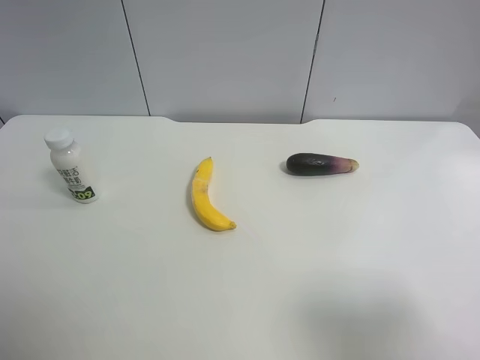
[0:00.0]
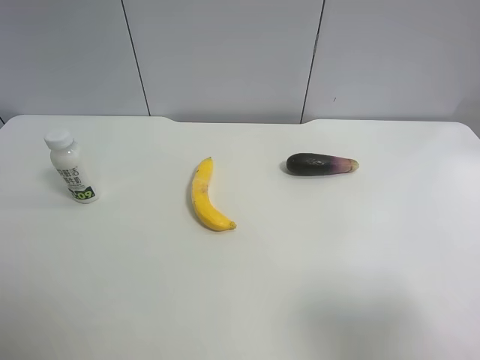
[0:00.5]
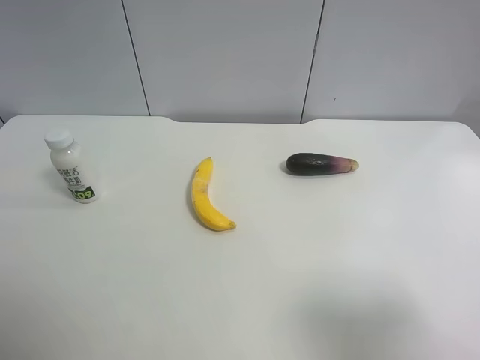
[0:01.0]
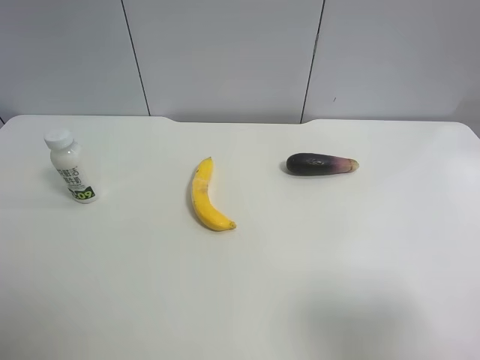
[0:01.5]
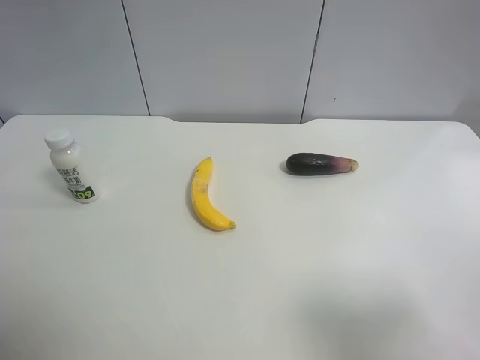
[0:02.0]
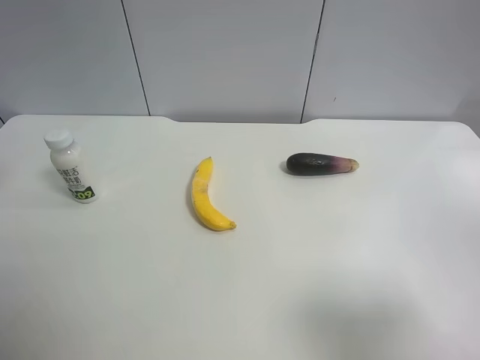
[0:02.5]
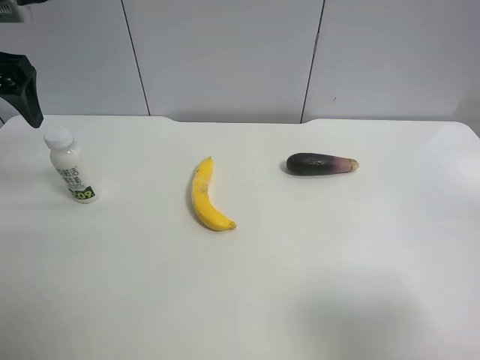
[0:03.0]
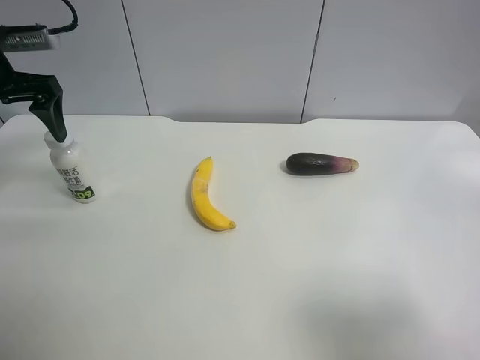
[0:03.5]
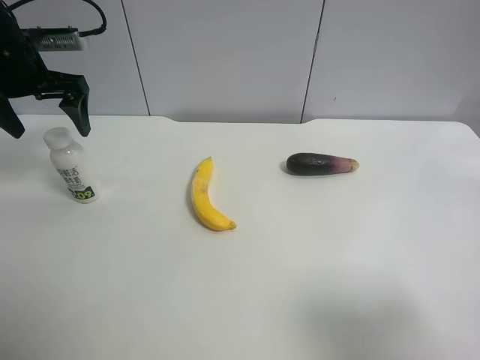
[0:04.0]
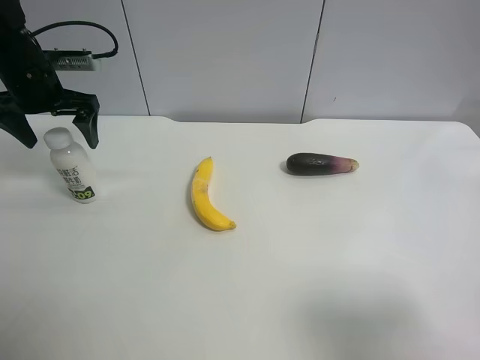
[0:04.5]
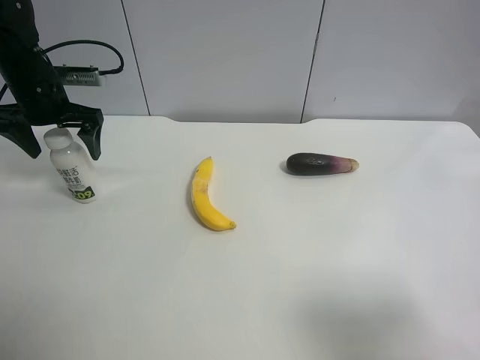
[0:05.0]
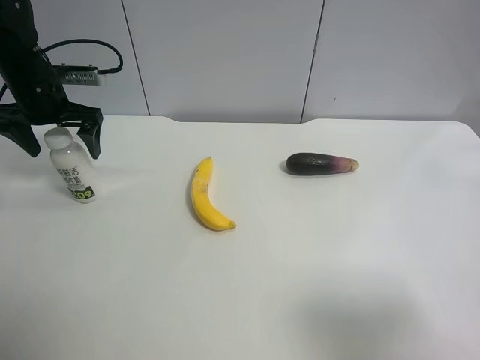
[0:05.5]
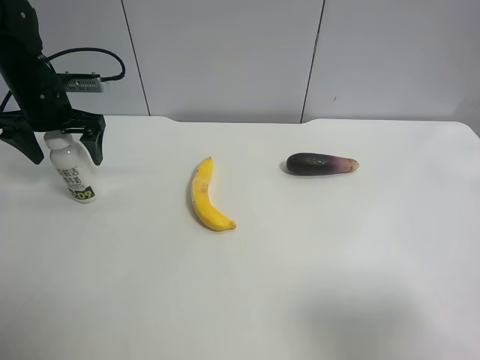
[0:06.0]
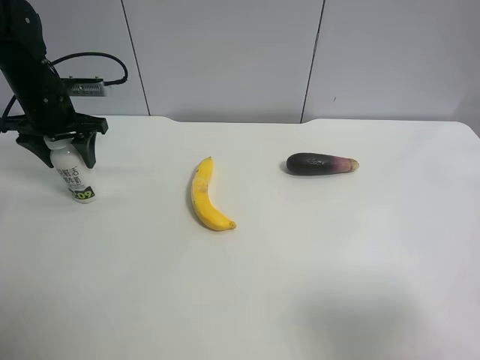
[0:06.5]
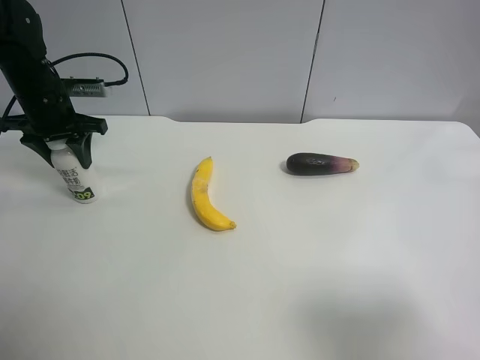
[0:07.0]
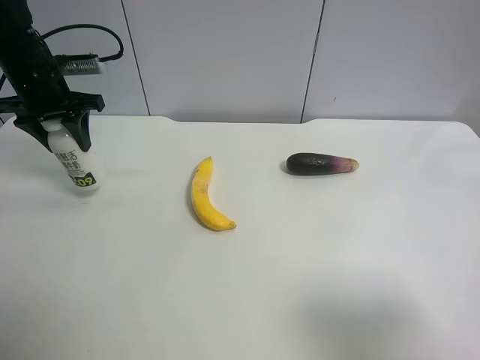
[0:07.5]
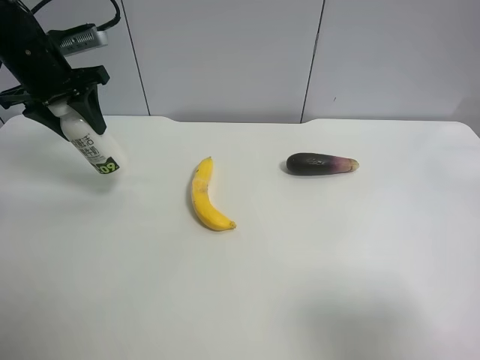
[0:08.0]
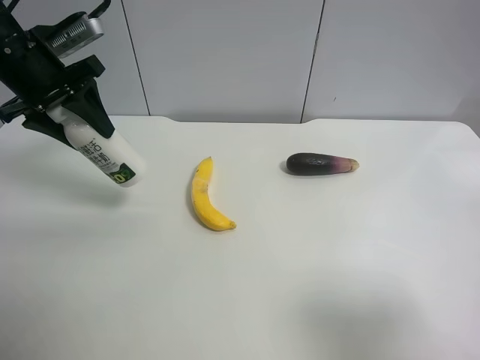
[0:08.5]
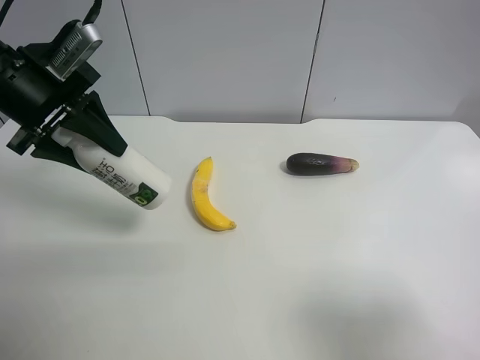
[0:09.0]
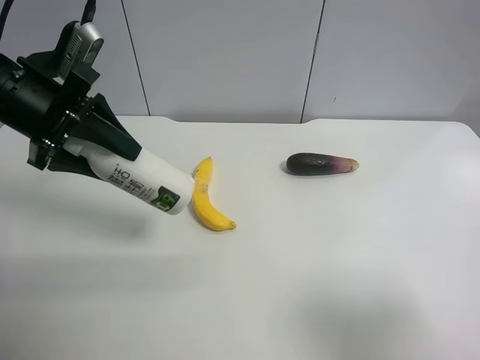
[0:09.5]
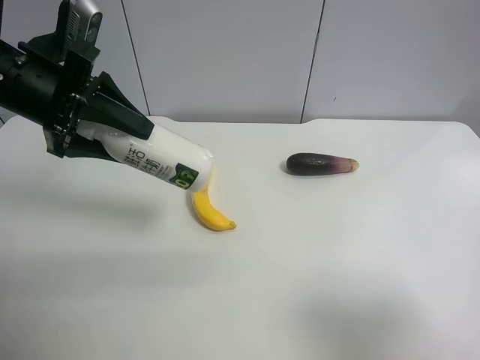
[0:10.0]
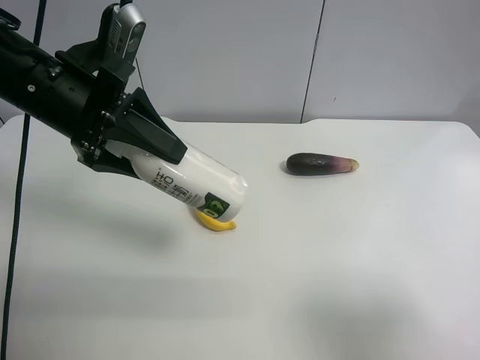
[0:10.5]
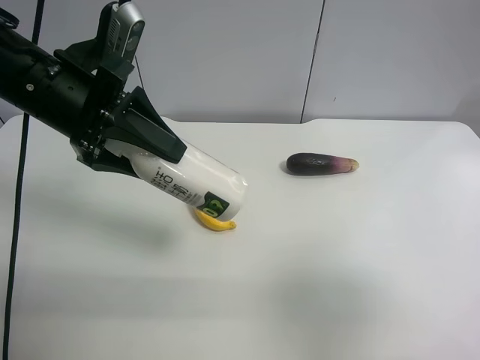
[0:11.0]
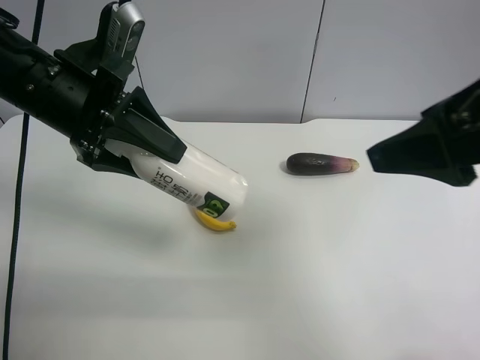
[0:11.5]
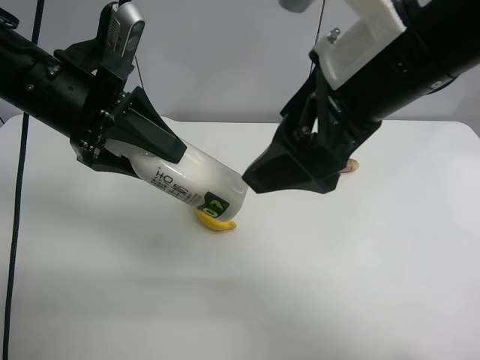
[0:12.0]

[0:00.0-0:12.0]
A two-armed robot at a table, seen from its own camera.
Task of the whole recording: use the left gripper to pick up the item and transfer it from the left gripper to the right gripper.
2.0 to 4.0 s: The left gripper goes about 25 cm forward and downward.
4.0 to 6.0 s: The left gripper goes some 5 cm downward.
6.0 to 8.0 s: The left gripper heads upward, covering about 5 cm, and closes up.
8.0 to 10.0 s: The left gripper moves backward and to the right, roughly 10 cm.
10.0 to 12.0 s: The right gripper goes approximately 25 cm to the left and forward.

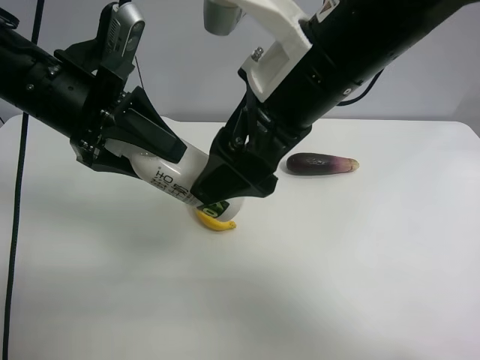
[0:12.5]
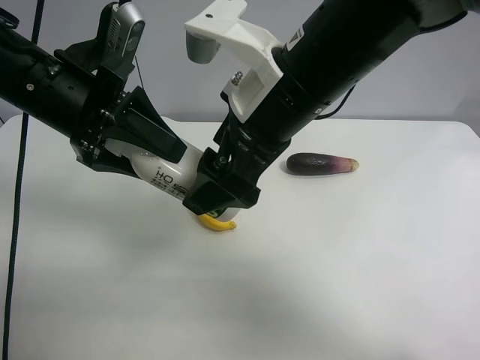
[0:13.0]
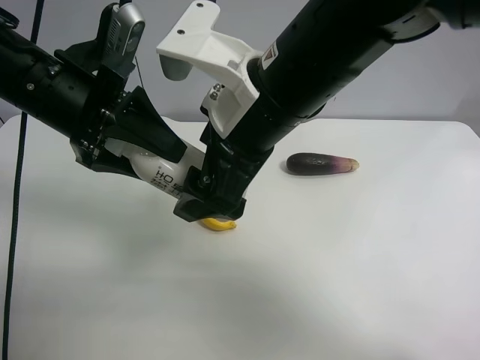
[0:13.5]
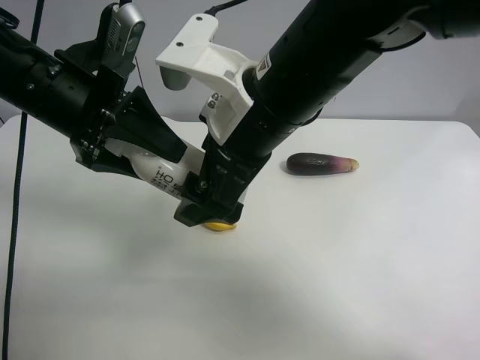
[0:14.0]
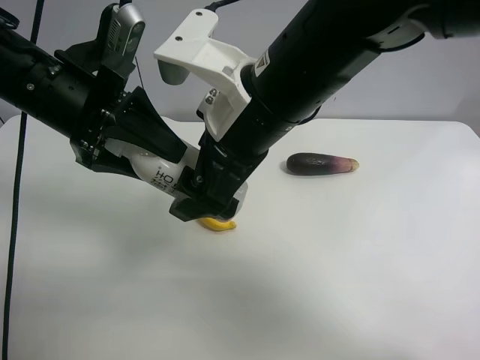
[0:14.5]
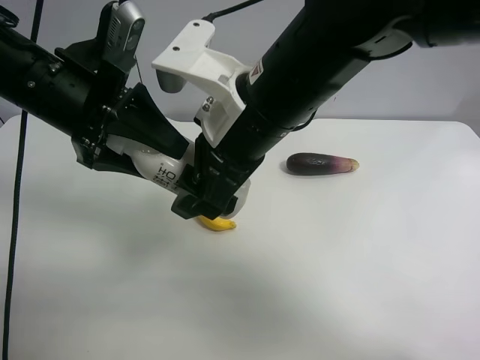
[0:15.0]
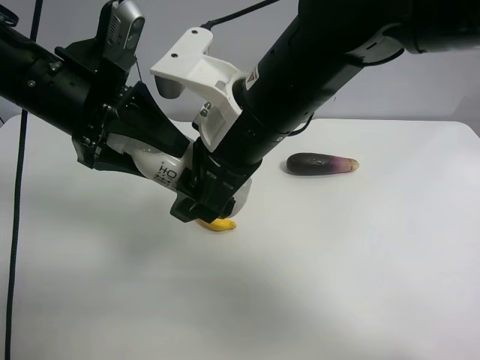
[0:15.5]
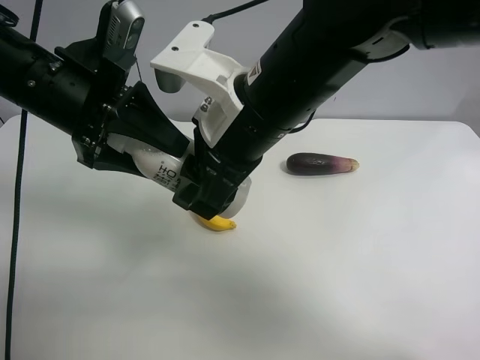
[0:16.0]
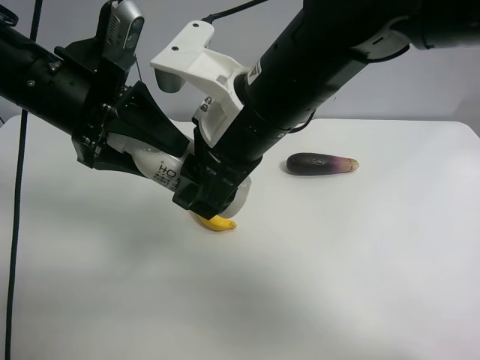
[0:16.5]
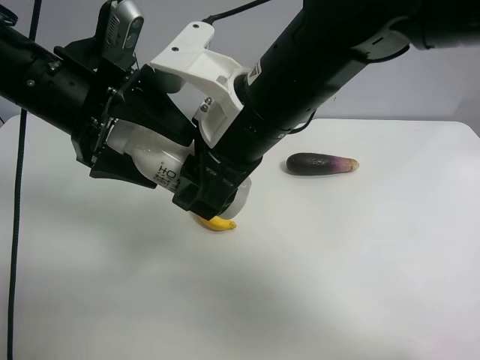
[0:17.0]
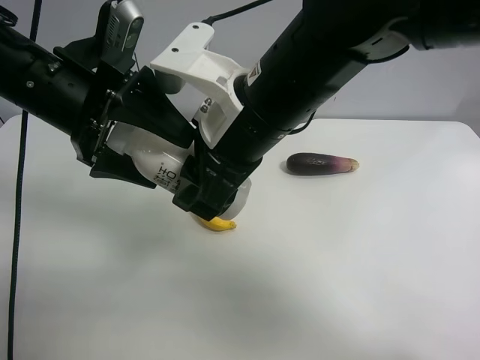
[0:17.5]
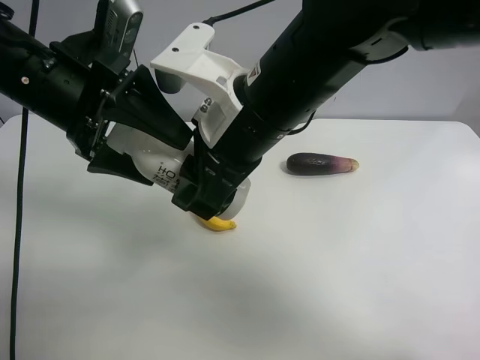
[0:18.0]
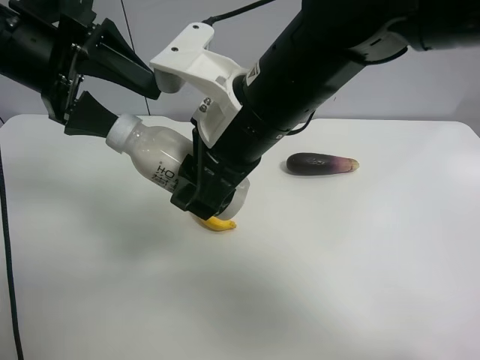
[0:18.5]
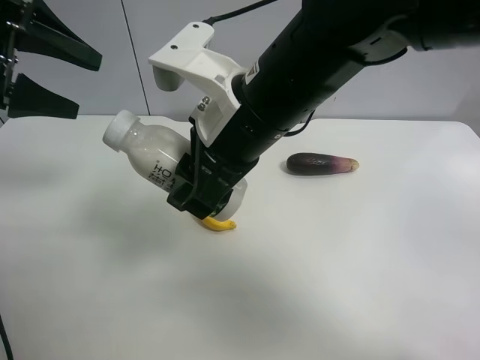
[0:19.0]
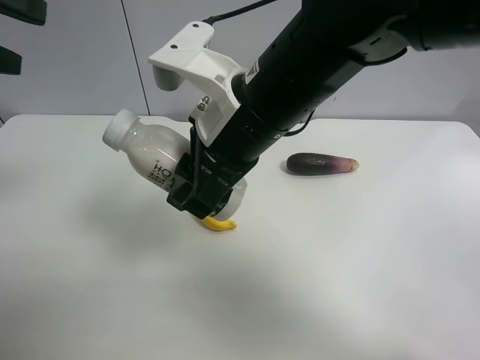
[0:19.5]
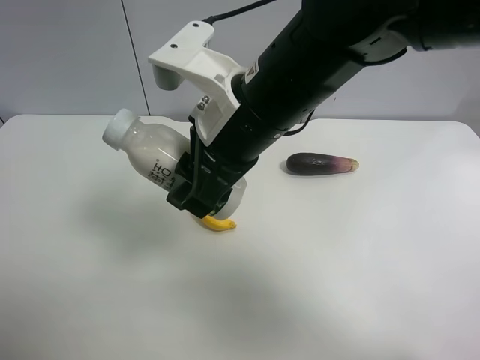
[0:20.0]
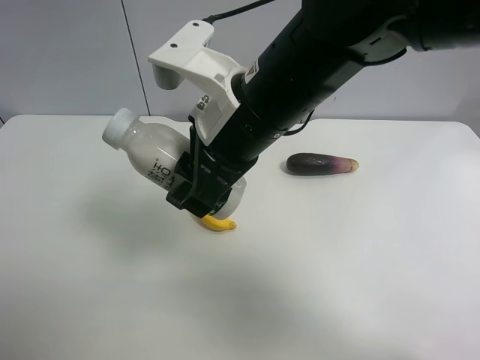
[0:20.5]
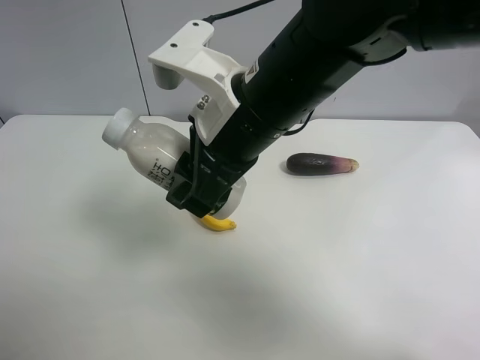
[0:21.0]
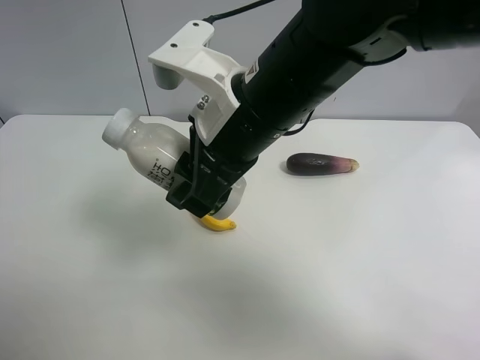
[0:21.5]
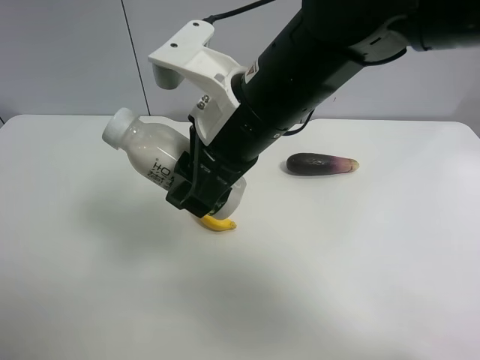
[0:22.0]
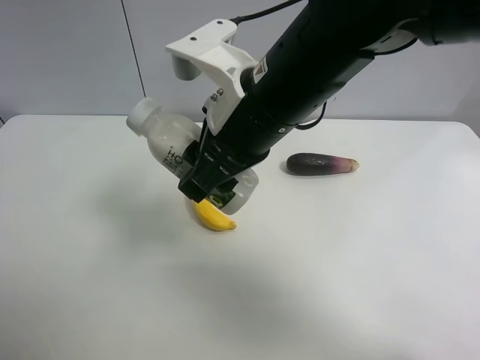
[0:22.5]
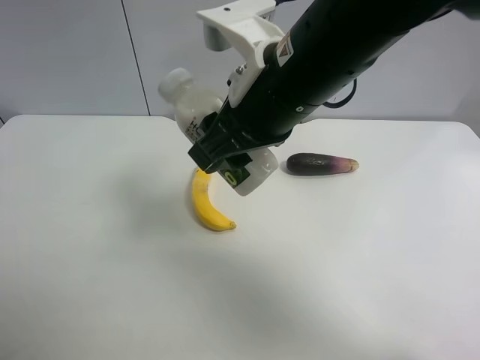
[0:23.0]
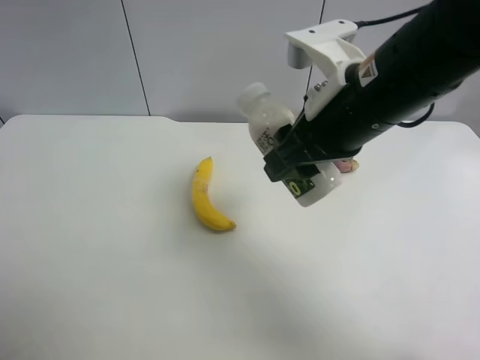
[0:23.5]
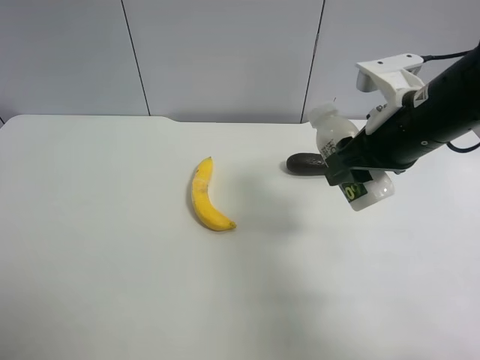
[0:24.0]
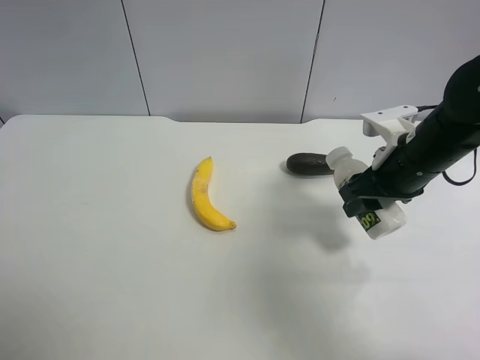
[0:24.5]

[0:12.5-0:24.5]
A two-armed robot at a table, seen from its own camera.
Task of the whole recording: use the left gripper to pick up the item and transfer it from the left gripper to the right gripper.
12.5 to 14.5 s: The grippers move only a little.
14.5 to 16.5 s: The right gripper closes up.
16.5 to 18.5 s: The left gripper shifts by some 5 cm, and opens.
18.5 to 20.5 s: The left gripper moves backward and upward, approximately 30 cm.
20.5 to 22.5 s: The left gripper heads downward, covering roughly 15 cm.
22.5 to 24.5 s: The right gripper moves to the right and downward, some 20 cm.

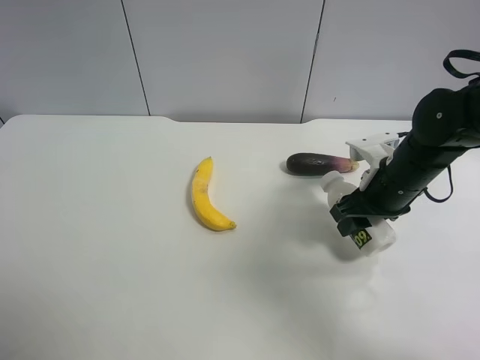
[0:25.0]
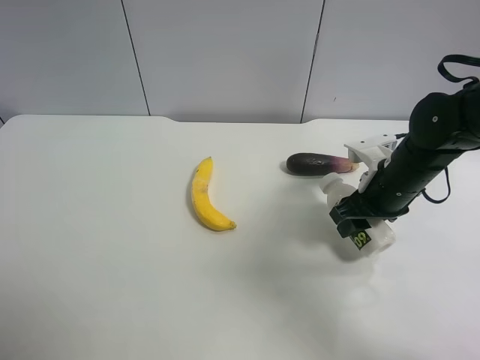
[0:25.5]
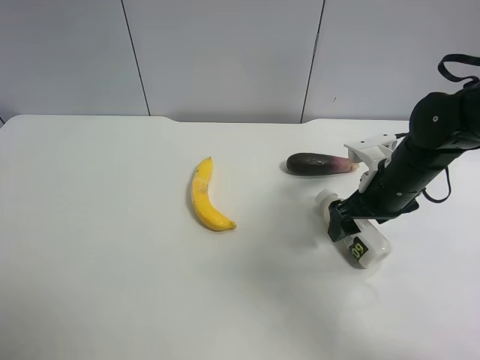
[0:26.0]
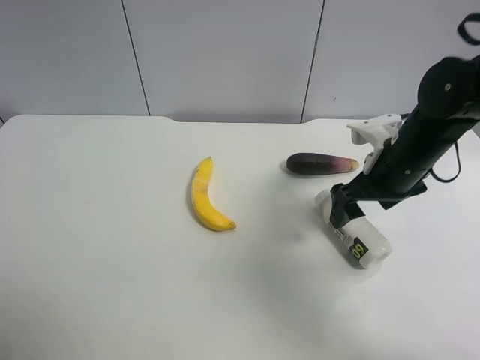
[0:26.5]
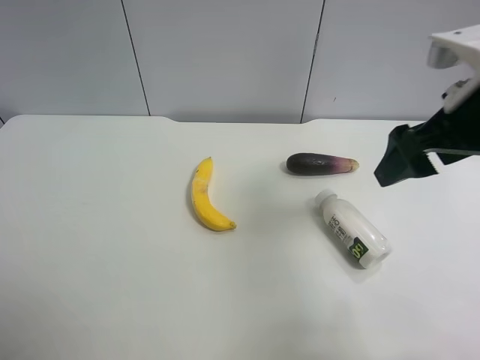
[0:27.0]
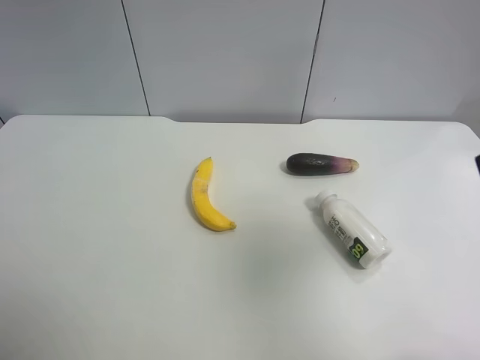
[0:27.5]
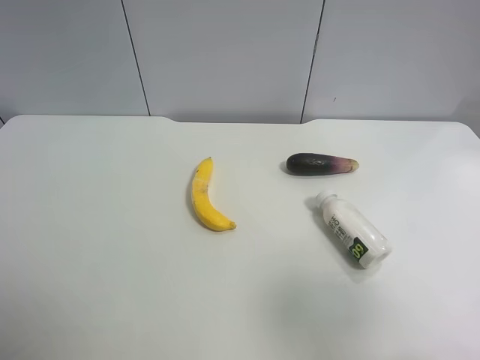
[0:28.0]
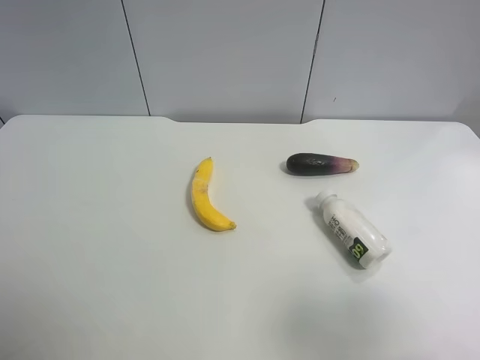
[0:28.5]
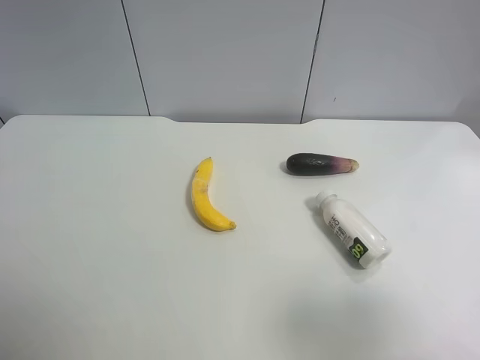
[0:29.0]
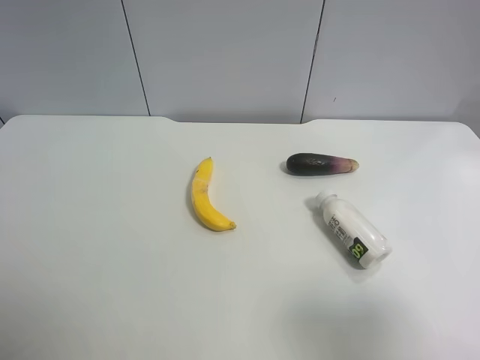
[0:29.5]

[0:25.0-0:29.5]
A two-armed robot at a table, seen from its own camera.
Task of the whole recording: use the left gripper to pick up the item and transfer it from the left gripper to the right gripper.
25.0 to 27.0 s: The right gripper heads upward and backward, covering approximately 20 cm, and opens.
27.0 to 29.5 s: The right gripper shifts roughly 20 cm backward.
